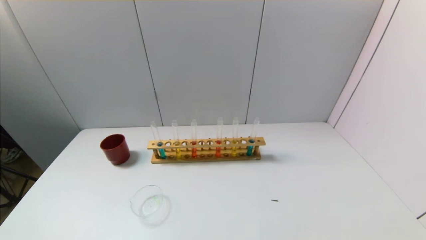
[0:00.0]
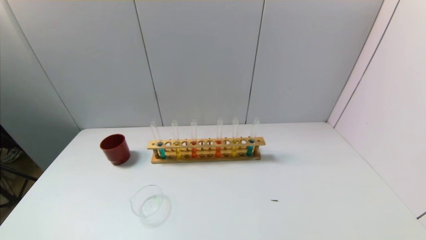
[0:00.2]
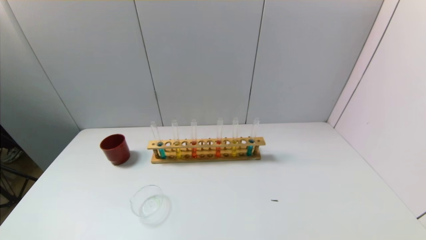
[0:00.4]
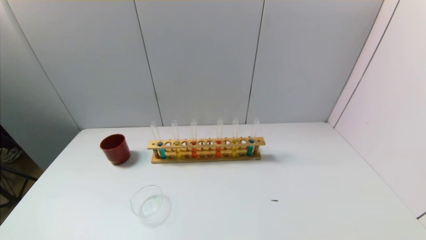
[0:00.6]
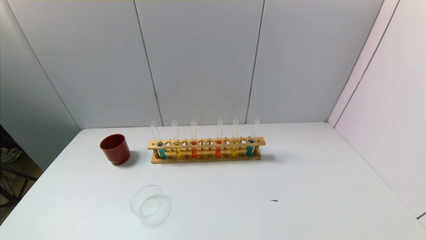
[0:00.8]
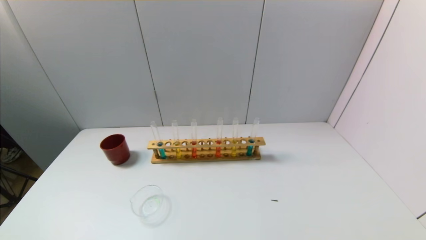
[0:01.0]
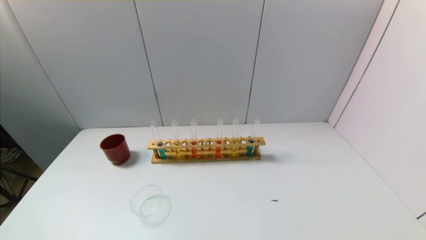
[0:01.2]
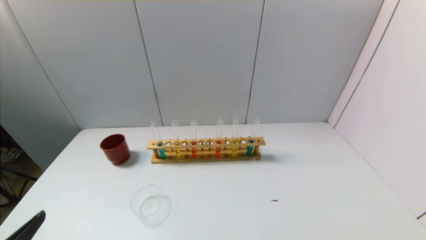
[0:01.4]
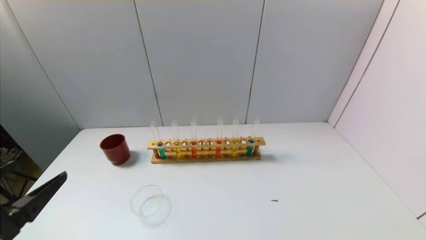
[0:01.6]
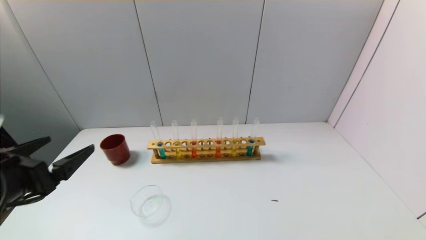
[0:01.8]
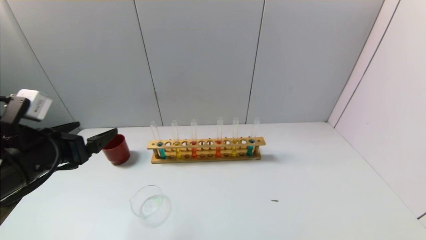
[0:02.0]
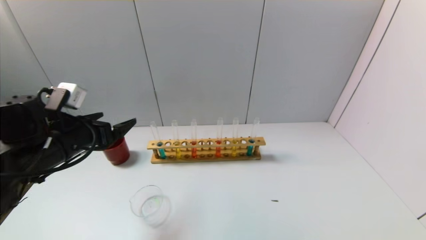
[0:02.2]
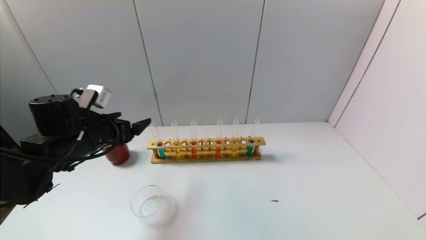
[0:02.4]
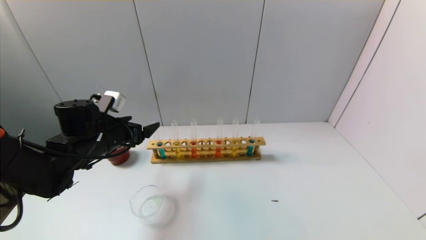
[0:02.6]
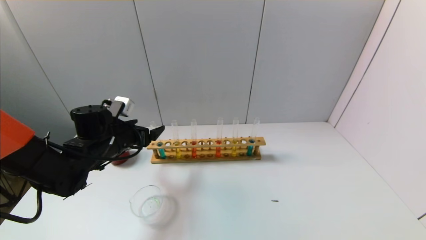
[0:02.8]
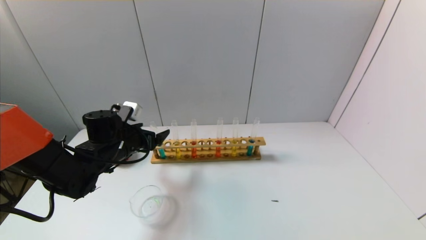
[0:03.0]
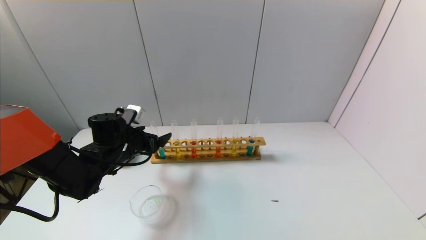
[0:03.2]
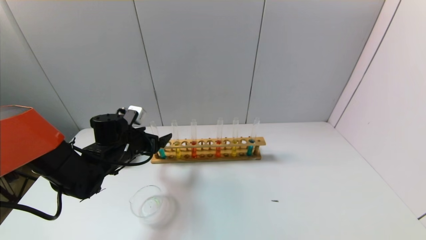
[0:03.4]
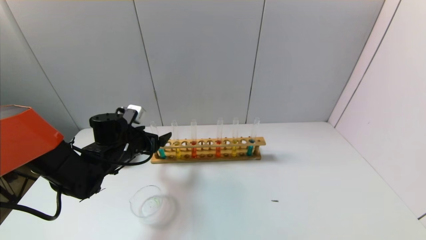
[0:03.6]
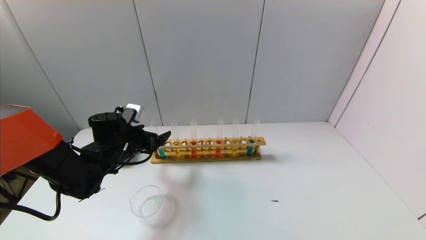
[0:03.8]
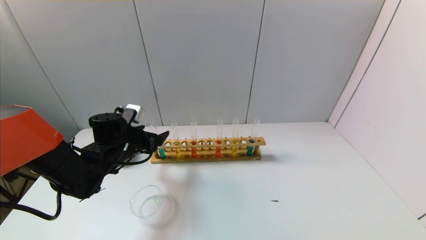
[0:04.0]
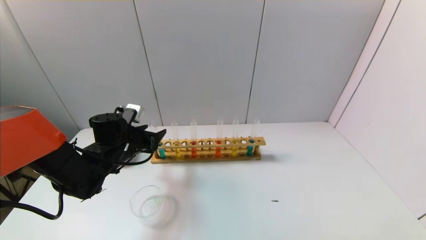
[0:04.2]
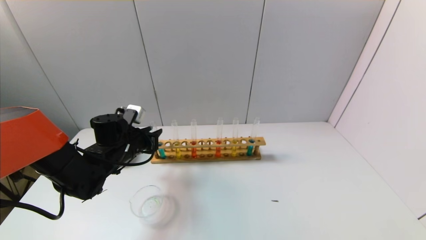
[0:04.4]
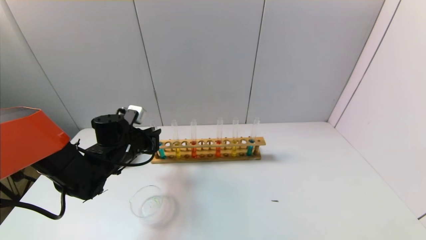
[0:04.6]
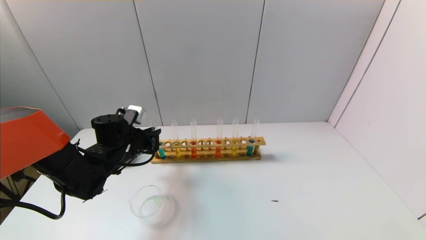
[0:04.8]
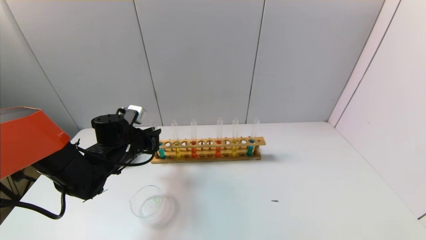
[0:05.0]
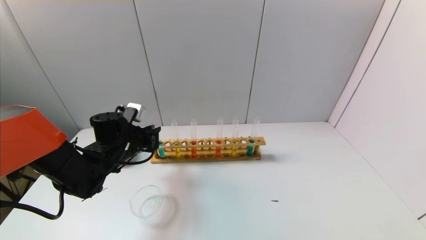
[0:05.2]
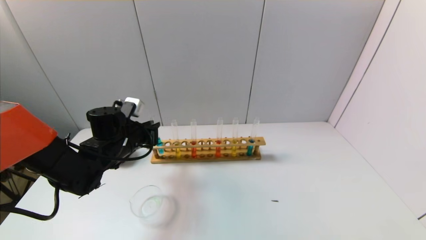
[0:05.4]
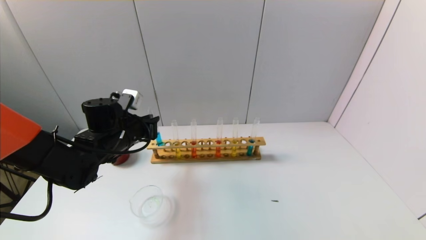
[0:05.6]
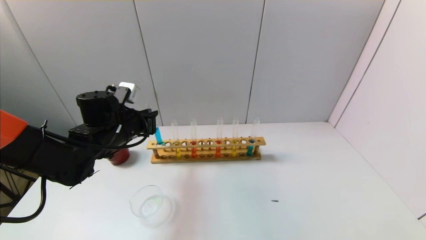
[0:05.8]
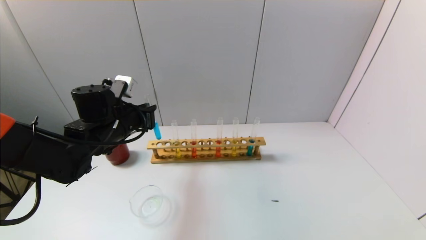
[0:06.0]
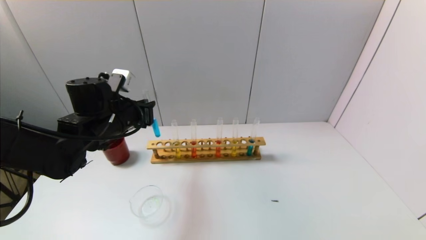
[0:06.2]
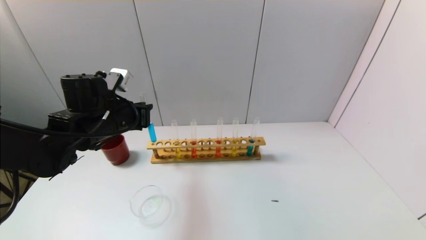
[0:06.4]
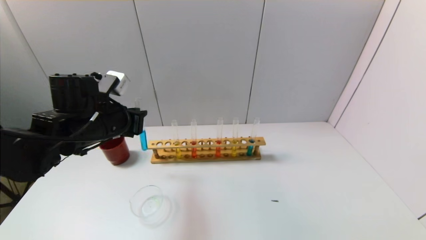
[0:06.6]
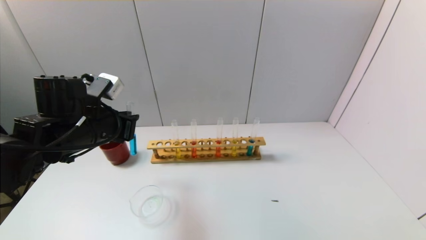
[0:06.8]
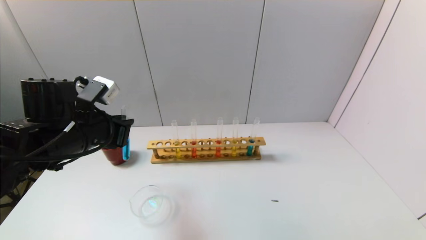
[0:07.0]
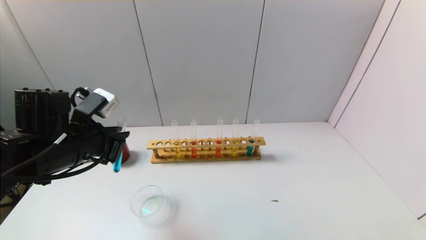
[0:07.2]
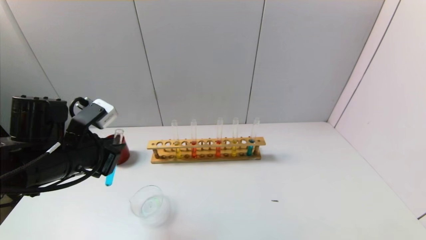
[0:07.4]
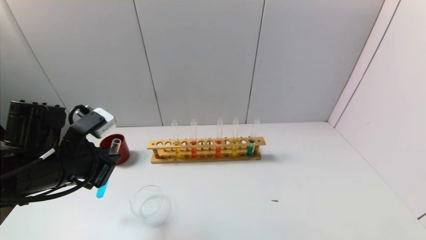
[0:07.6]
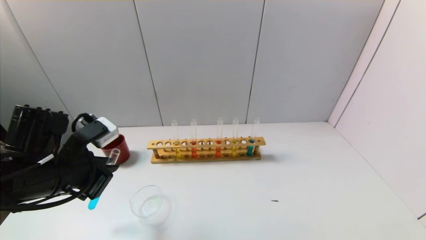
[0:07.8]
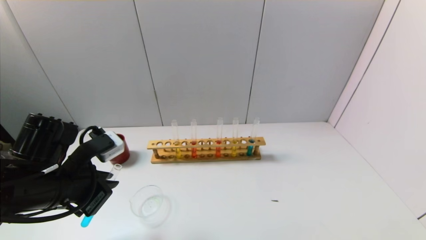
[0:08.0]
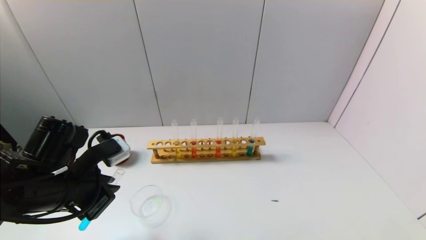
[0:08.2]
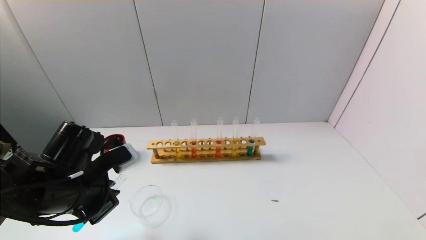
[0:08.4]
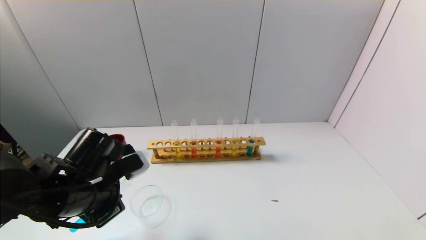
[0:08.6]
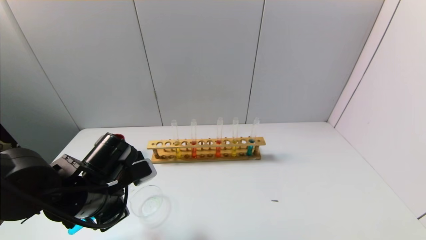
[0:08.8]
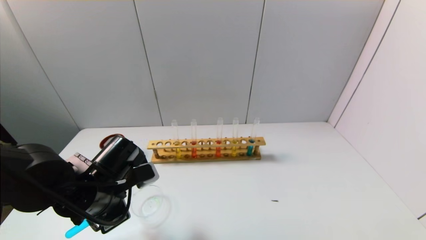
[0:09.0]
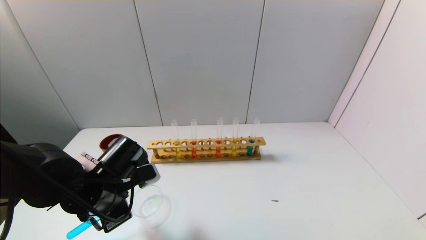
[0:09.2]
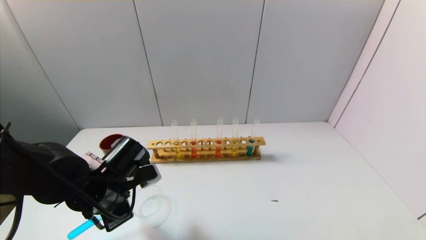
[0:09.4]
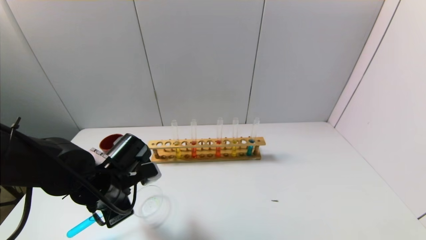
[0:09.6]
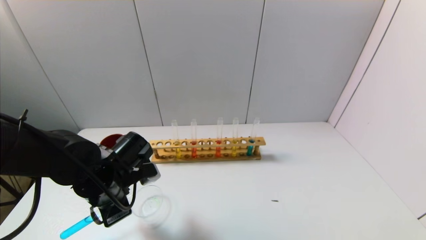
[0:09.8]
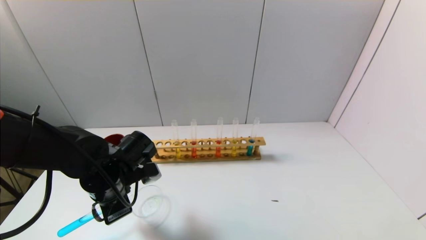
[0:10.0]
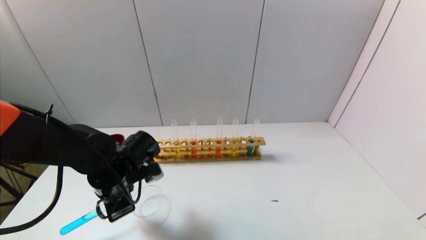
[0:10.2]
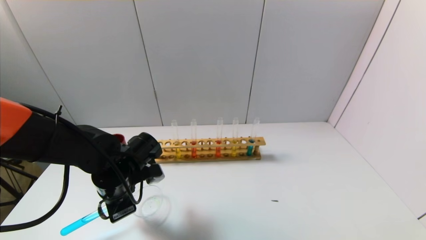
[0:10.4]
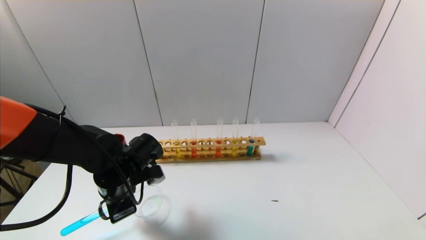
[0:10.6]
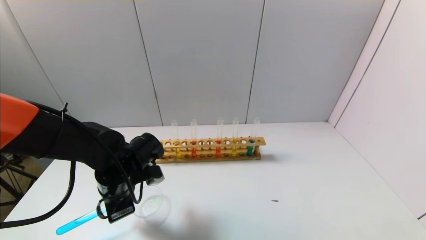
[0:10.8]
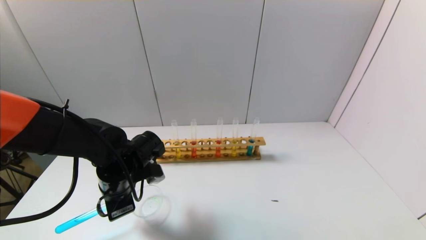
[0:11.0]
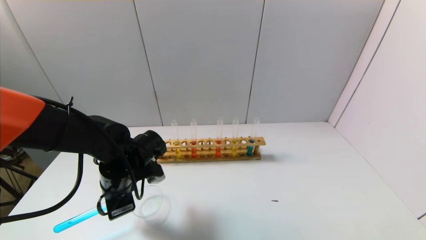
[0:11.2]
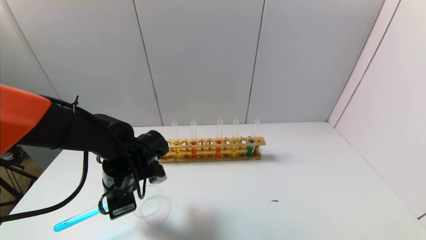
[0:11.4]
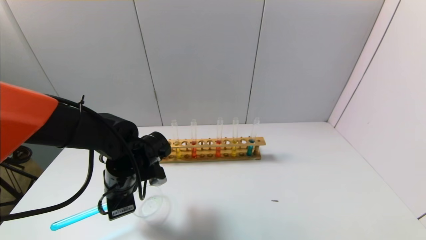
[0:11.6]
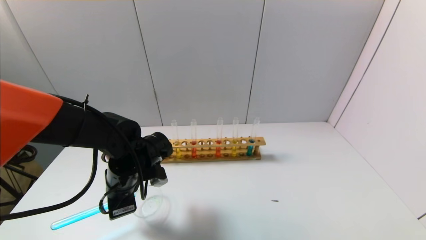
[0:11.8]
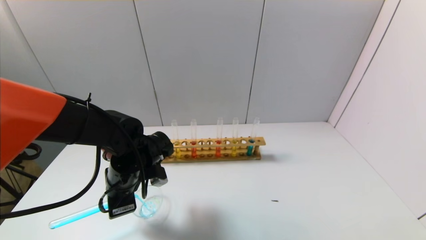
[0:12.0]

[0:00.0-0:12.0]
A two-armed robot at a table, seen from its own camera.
Task of the whole recording: pick up the test tube with yellow pigment and the test tube with blue pigment by grippers and pour them into the beaker.
Step, 0.0 to 4.6 s: Grasp the blue reagent with the left gripper.
0.0 to 1.6 s: The left gripper moves upward and forward, roughly 15 cm.
1.6 to 3.0 s: The left gripper goes some 25 cm forward.
3.0 to 4.4 s: The left gripper closes its fingers.
4.4 to 6.0 s: The left gripper goes approximately 10 cm upward.
6.0 to 7.6 s: The left gripper travels backward by approximately 10 cm.
7.6 to 9.0 s: The left gripper travels downward and to the right by approximately 10 cm.
9.0 to 10.4 s: The grippers move only a little.
10.4 to 12.0 s: The grippers stay close to where they were, moving slightly.

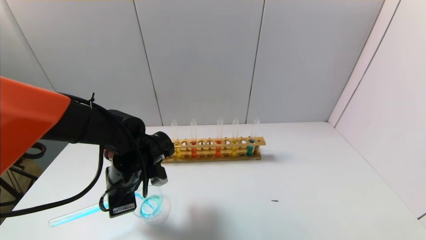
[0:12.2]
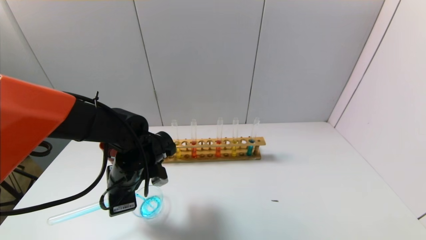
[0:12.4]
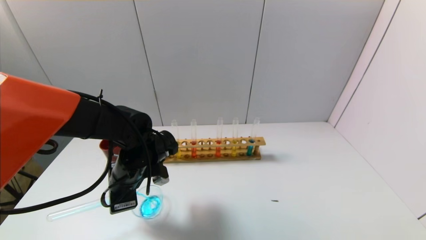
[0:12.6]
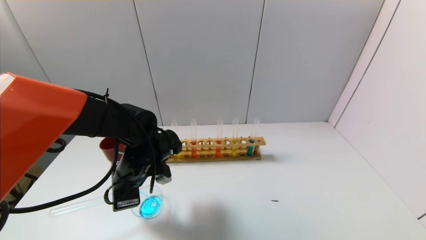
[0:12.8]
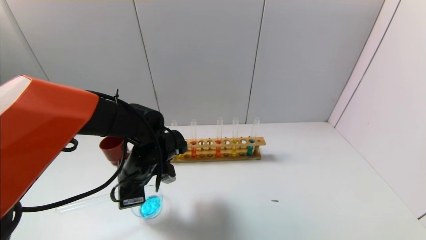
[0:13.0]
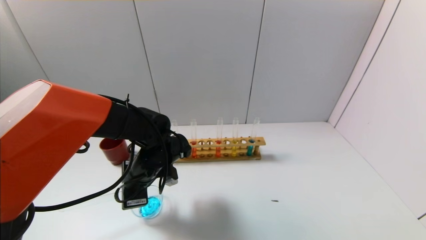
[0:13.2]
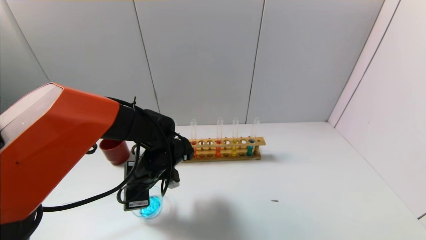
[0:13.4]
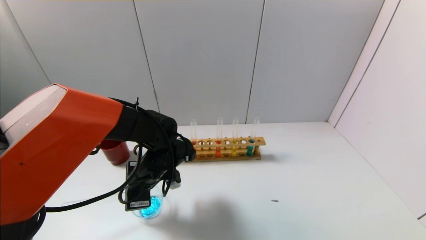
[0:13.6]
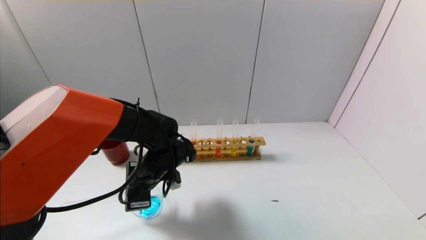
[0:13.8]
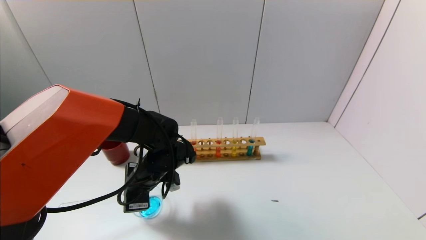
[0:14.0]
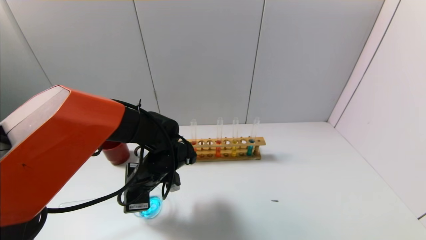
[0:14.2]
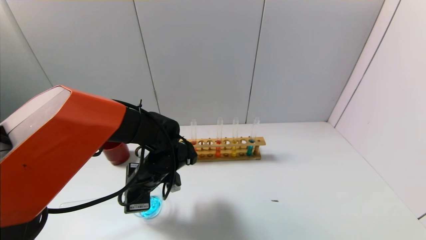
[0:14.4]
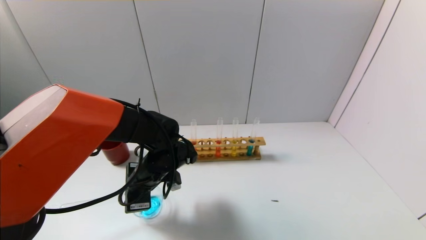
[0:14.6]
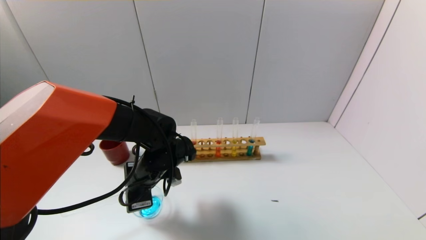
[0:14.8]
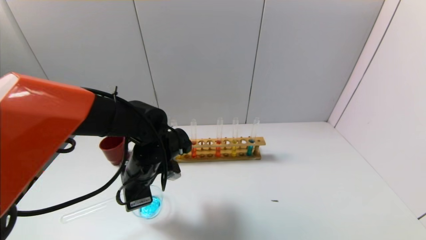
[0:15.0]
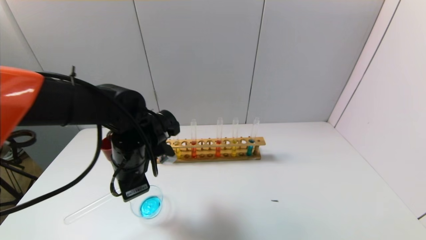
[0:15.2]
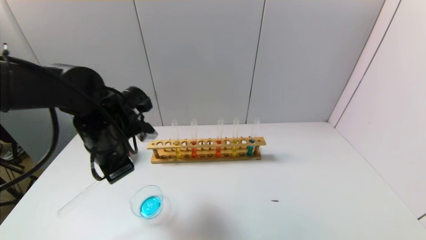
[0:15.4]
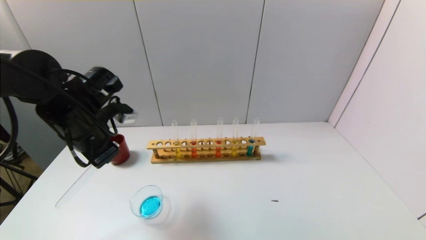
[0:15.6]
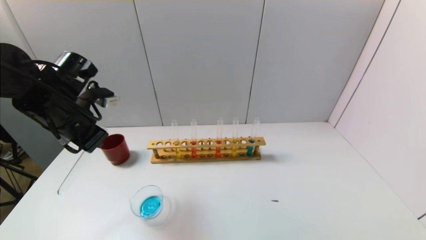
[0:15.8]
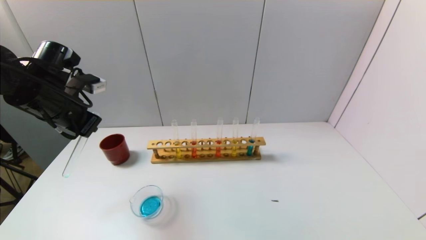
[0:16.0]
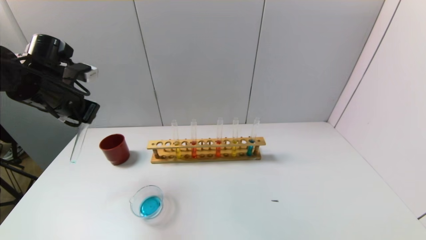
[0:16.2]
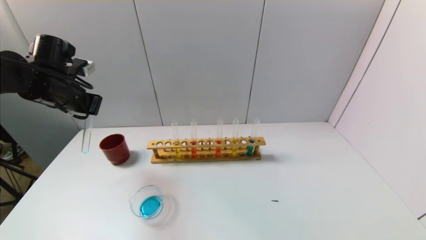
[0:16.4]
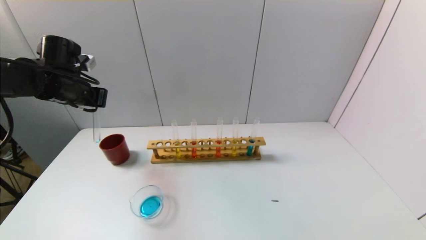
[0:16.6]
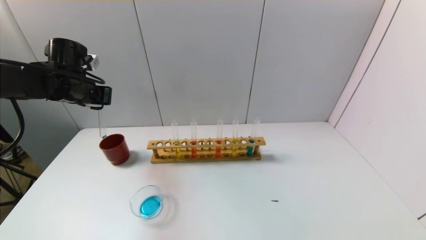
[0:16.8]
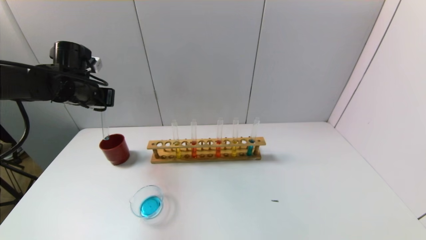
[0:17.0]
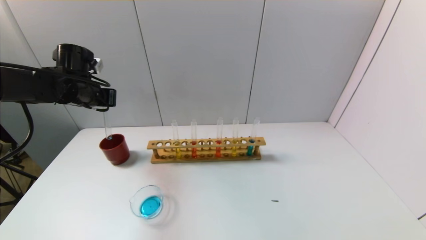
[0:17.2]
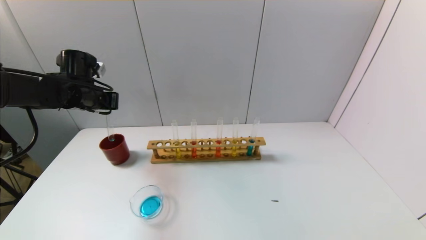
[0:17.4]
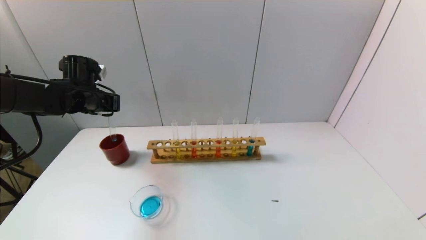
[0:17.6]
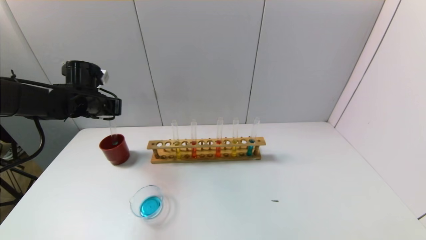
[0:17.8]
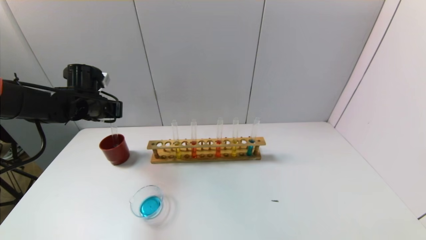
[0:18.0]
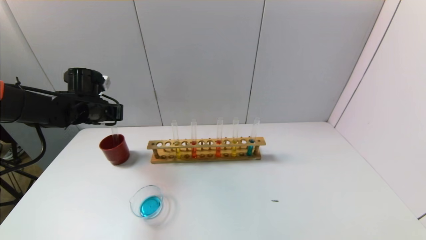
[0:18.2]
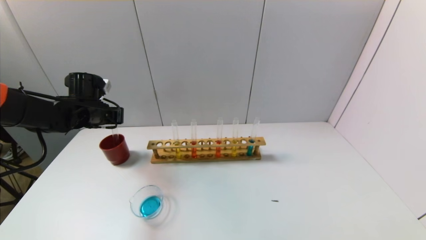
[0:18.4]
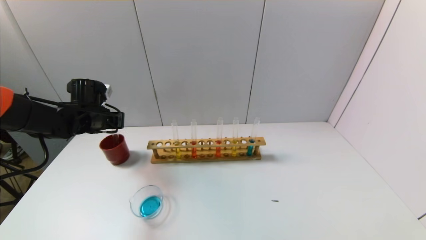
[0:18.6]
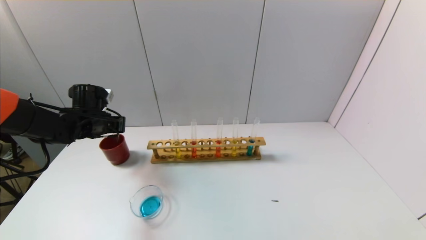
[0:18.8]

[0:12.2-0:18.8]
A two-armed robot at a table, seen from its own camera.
Task of the whole recording: pick up the test tube with yellow pigment and the test tube with blue pigment by grippers and pour them into the beaker.
Step, 12.2 to 15.4 s: Pour the blue reagent into the graduated cylinder with the left gripper.
12.2 to 13.8 s: The grippers stay close to where they were, moving slightly.
13.8 to 15.4 s: The left gripper moves upward and to the left, roughly 10 cm.
15.4 to 17.2 s: The left gripper goes some 15 cm forward and to the left.
17.2 to 18.8 s: The left gripper heads downward, covering some 10 cm.
